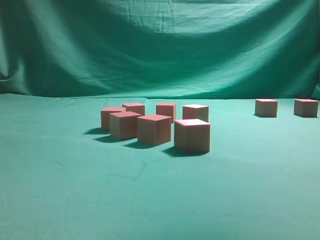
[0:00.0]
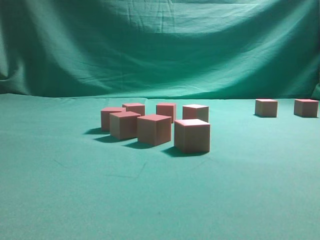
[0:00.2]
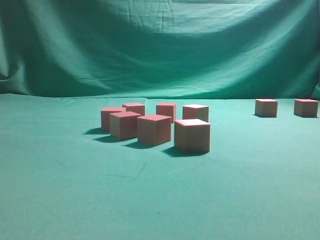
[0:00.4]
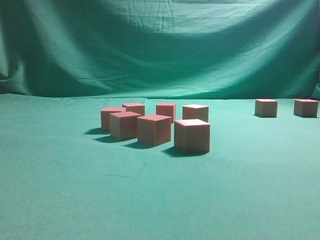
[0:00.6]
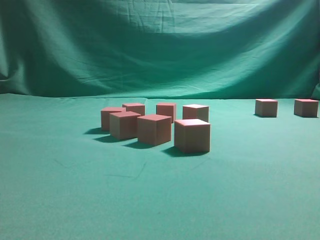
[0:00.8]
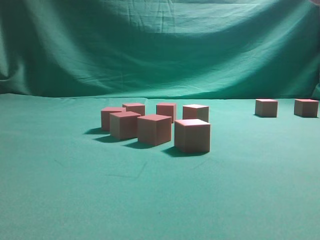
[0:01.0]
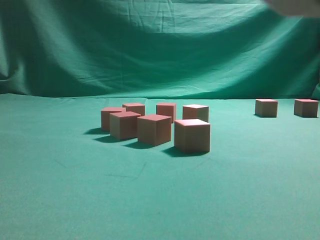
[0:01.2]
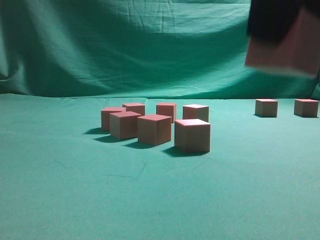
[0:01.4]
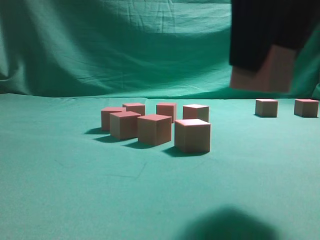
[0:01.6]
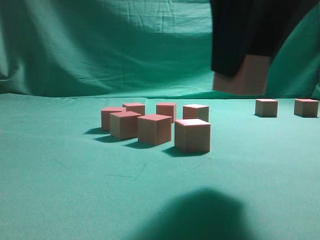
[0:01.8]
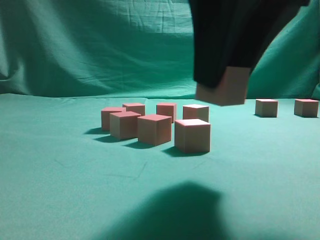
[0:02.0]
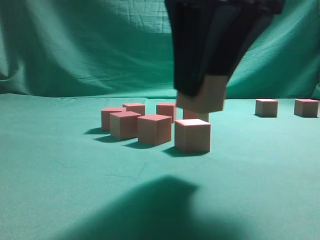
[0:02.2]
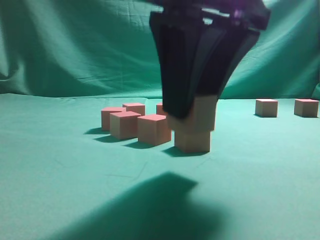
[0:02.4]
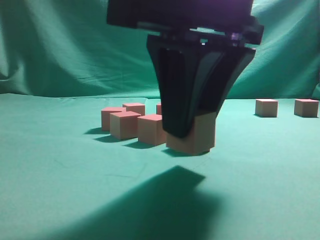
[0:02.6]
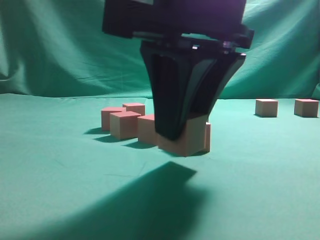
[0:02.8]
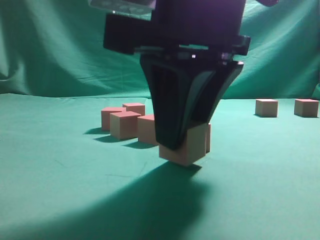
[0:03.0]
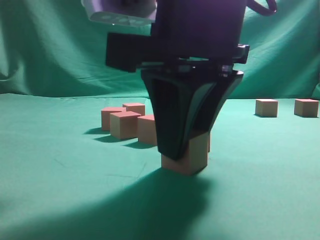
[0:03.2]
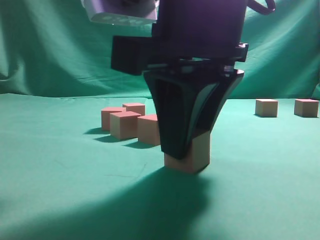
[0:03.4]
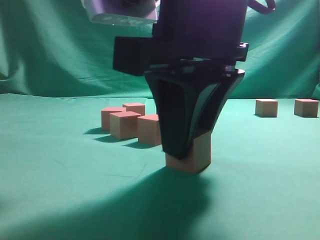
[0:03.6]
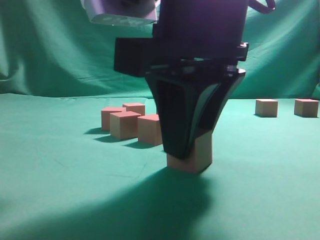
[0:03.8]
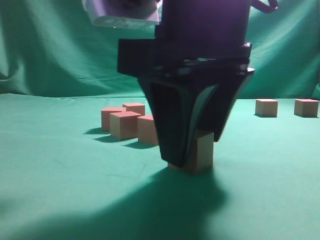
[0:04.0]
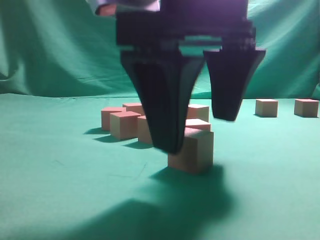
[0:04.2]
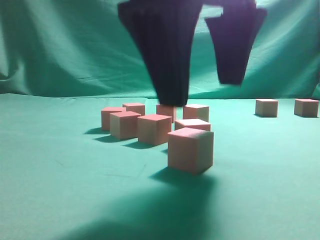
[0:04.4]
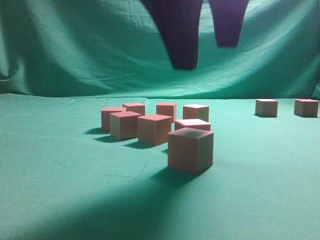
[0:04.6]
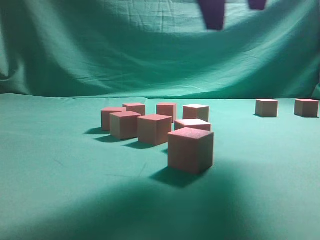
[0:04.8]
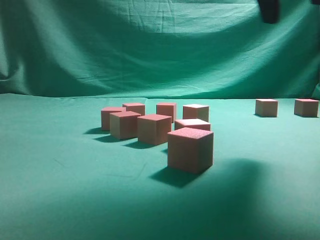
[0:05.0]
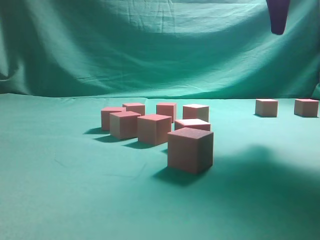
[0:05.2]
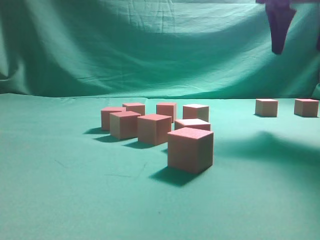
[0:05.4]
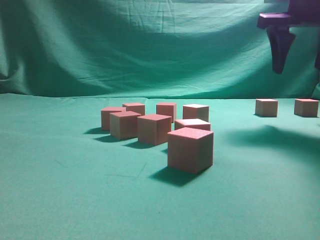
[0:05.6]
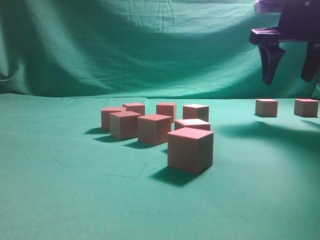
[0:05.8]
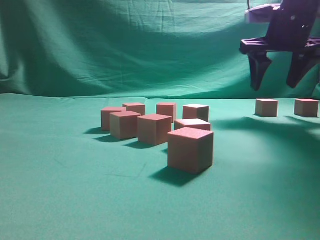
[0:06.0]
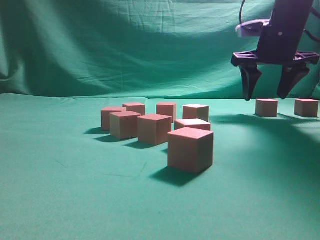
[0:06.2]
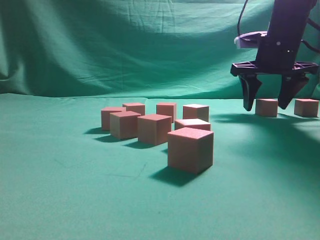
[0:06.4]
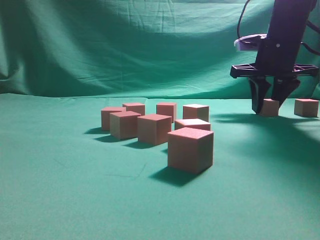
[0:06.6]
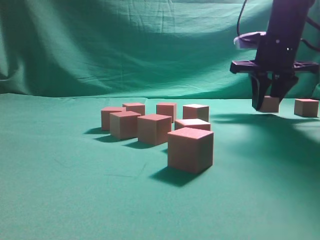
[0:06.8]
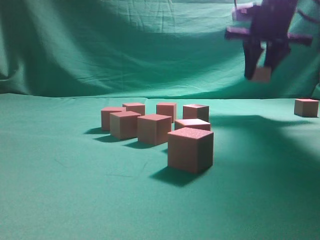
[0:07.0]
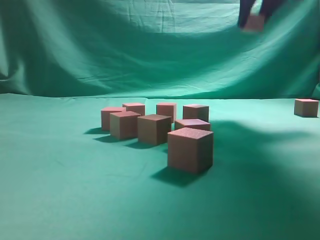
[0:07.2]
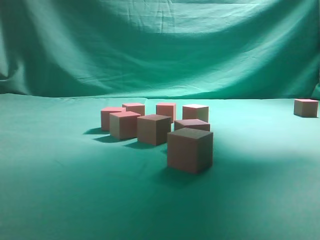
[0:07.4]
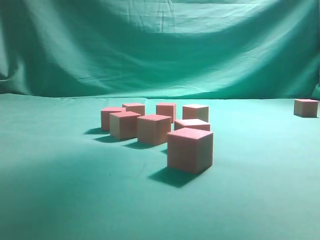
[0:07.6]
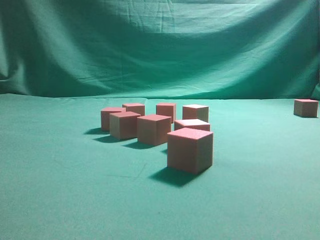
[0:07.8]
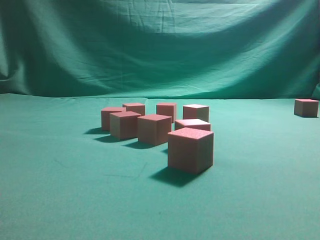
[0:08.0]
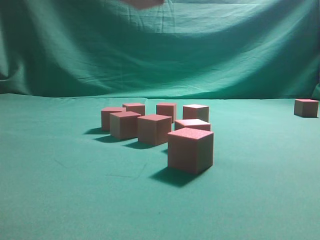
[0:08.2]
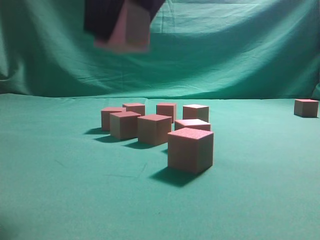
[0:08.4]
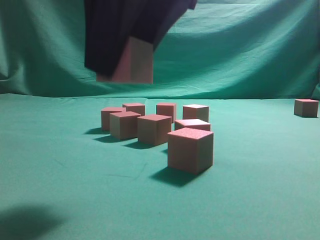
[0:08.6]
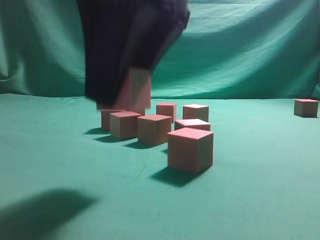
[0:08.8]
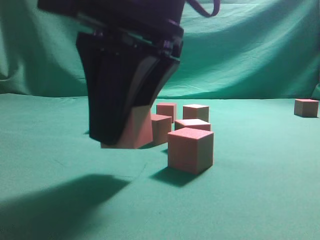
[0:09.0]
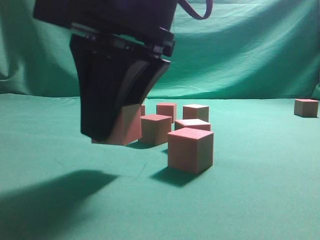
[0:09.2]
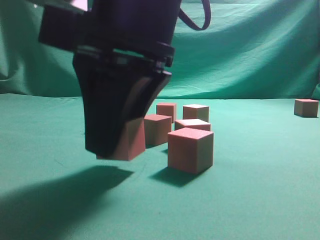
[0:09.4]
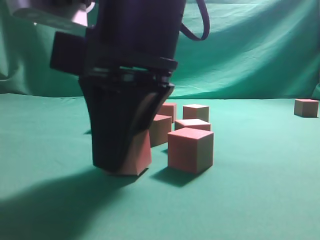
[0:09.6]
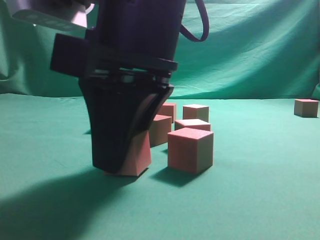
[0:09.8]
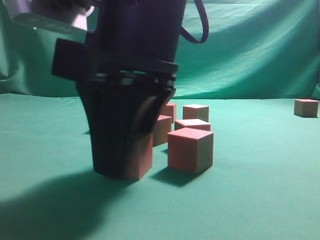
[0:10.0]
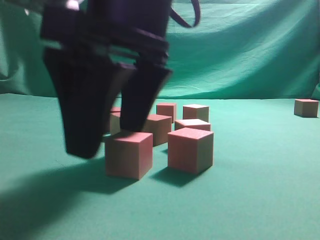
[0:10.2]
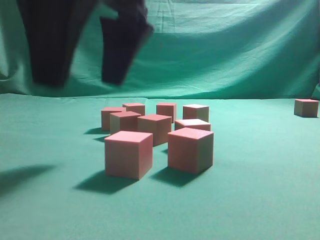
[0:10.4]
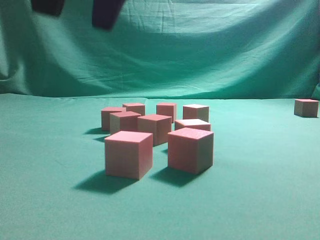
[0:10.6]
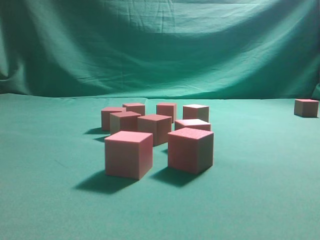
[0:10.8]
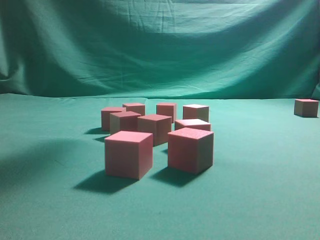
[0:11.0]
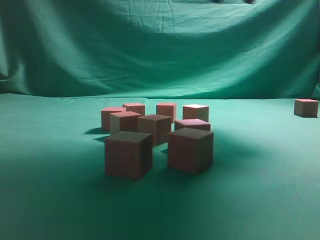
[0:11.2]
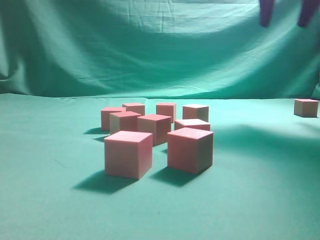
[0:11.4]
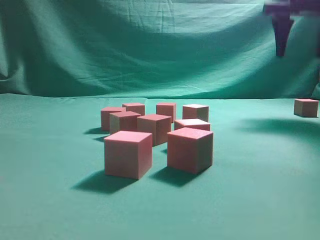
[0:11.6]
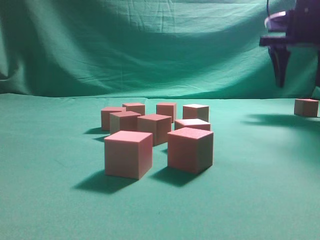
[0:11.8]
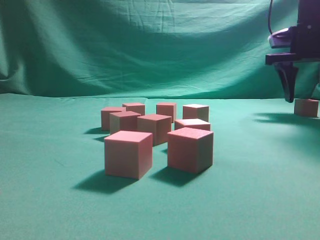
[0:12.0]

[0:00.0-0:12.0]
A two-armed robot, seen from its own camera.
Task of the whole recording: pick up the multiple cubes in two columns one by one and place them in another position on the table.
Step, 0:00.0 to 0:04.4: Place the block at the correct position to assemble the letter S.
Step, 0:04.6 to 0:06.8: Pick up the block on the table.
Step, 0:07.0 to 0:10.2: Place the block at the correct position to assemble the letter S.
0:00.0 to 0:01.6: The right gripper heads downward, backward and to the left, covering roughly 20 cm.
0:01.6 to 0:03.0: The right gripper heads to the left and downward, covering some 10 cm.
0:03.0 to 0:04.4: The right gripper opens up.
0:04.4 to 0:06.0: The right gripper is displaced forward and to the right by roughly 30 cm.
0:06.0 to 0:07.6: The right gripper goes roughly 20 cm upward, and closes up.
0:07.6 to 0:09.0: The right gripper heads downward, backward and to the left, covering some 35 cm.
0:09.0 to 0:10.4: The right gripper opens.
0:10.4 to 0:12.0: The right gripper is displaced to the right and forward by about 40 cm.

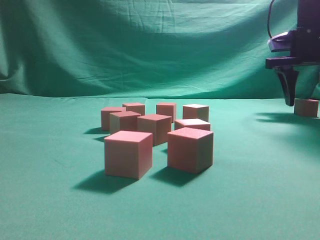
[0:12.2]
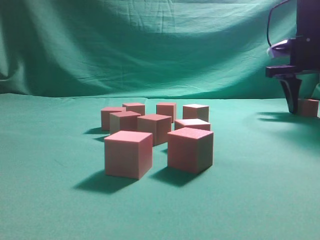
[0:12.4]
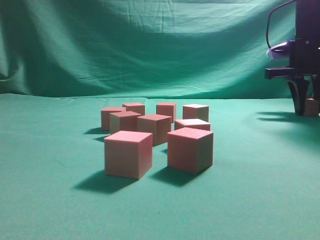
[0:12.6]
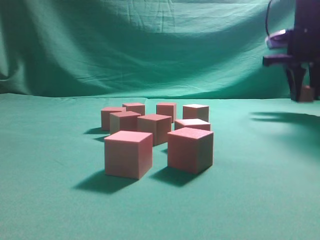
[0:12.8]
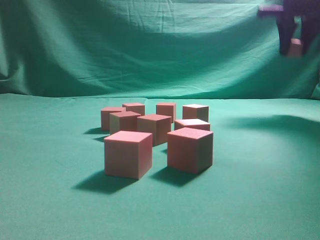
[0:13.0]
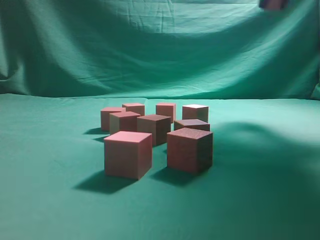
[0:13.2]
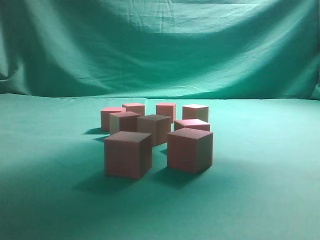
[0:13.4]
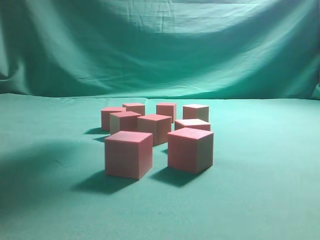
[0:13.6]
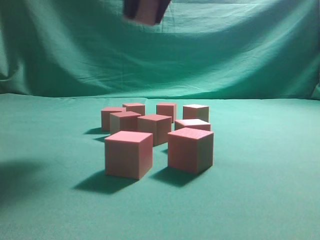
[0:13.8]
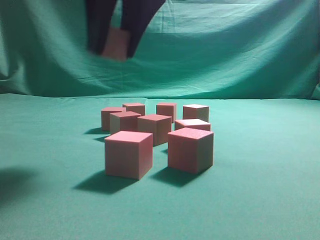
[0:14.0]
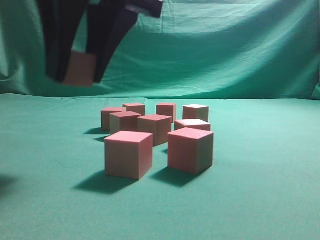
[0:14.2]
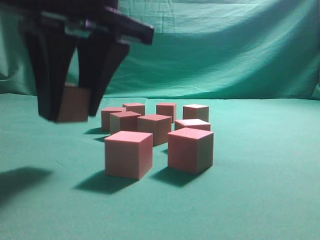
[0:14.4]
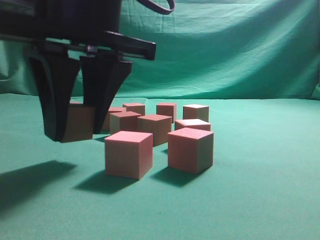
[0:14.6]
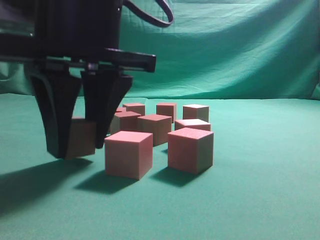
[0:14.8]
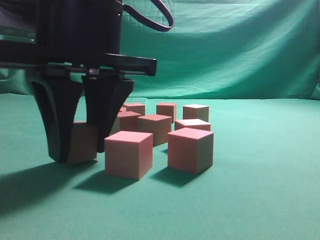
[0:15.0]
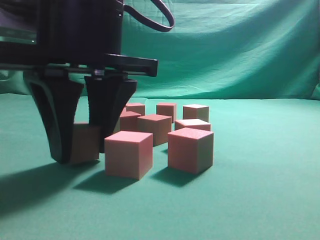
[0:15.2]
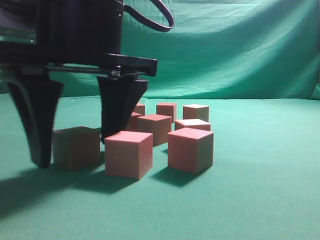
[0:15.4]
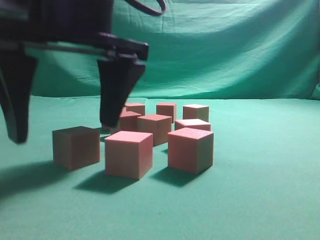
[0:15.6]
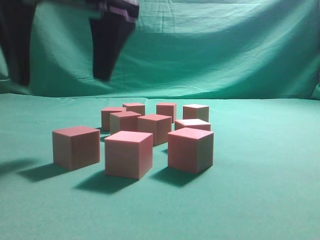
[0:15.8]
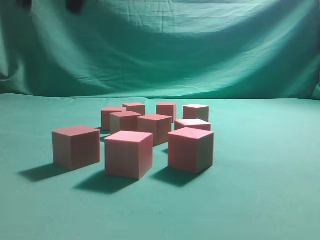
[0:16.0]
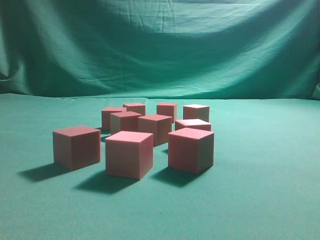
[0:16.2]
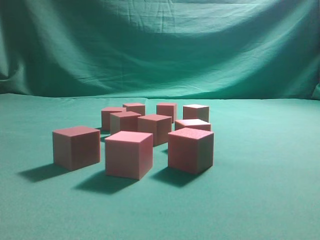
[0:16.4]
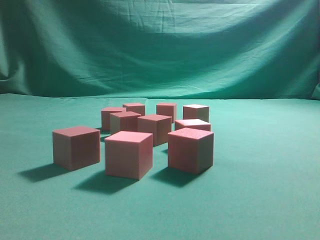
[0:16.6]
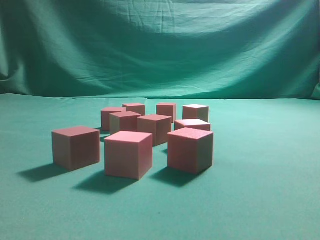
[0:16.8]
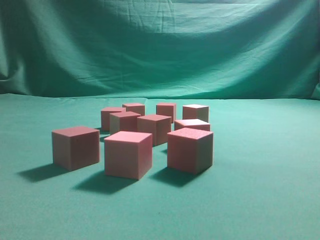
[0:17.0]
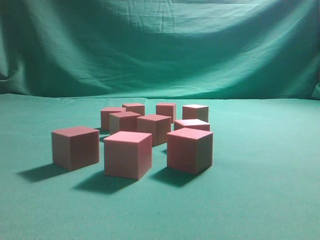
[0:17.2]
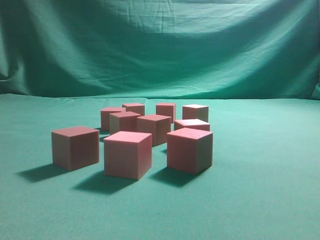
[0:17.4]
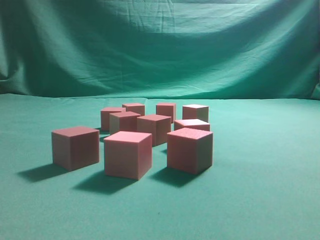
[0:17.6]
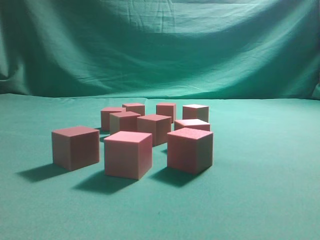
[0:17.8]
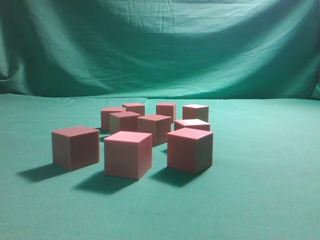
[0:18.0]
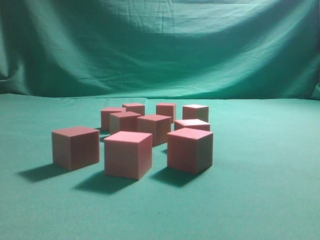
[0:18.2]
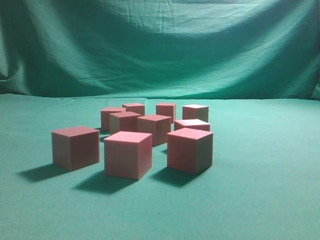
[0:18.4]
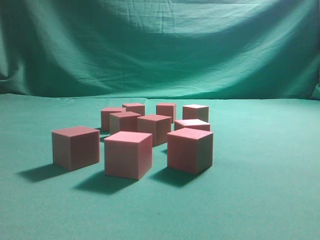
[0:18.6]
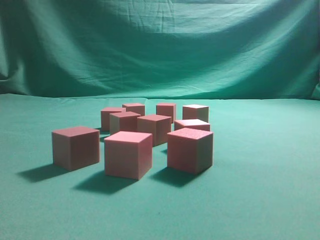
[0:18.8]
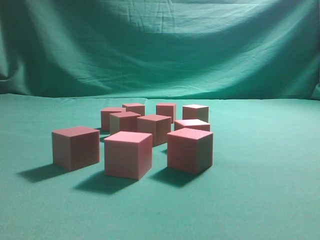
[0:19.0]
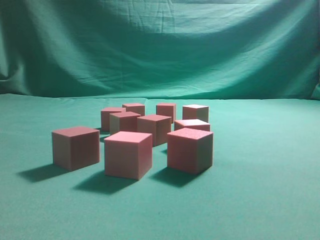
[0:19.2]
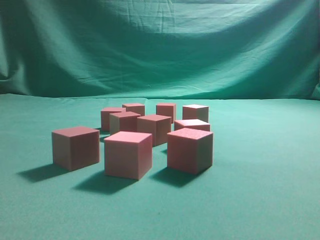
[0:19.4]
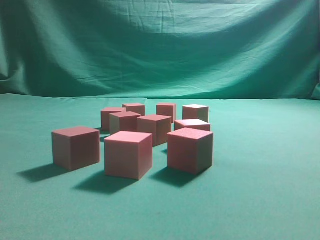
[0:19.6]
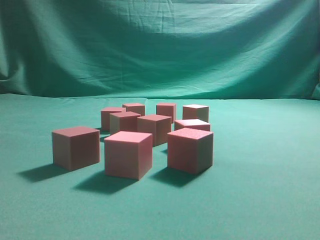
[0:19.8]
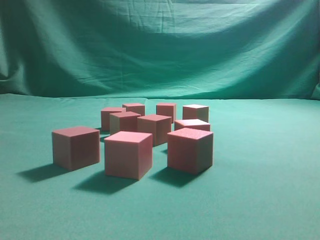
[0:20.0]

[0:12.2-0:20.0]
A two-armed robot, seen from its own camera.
Task of the whole recording: pick up the multiple cubes in two columns one by one and place them in another position on the table.
Step, 0:12.8 to 0:15.6: Place the block at the correct position to assemble the letter S.
0:12.2 to 0:13.8: The right gripper shifts about 35 cm to the left, backward and upward, and closes up.
0:13.8 to 0:15.4: The right gripper is displaced downward, backward and to the left by approximately 15 cm.
0:15.4 to 0:16.8: The right gripper is displaced upward and to the right by about 40 cm, and closes.
